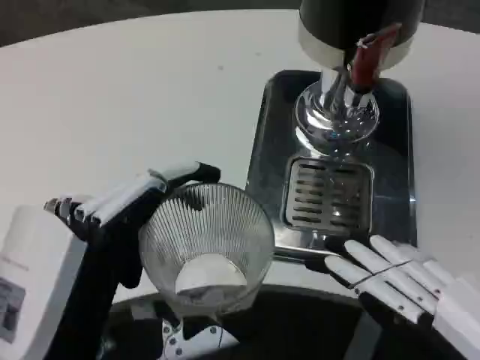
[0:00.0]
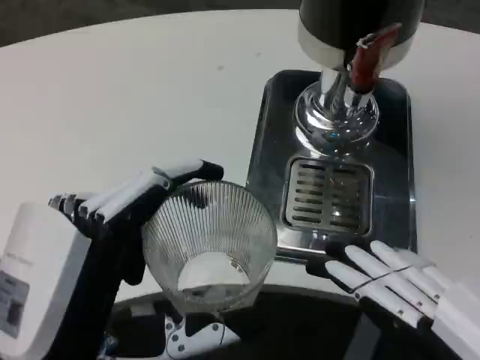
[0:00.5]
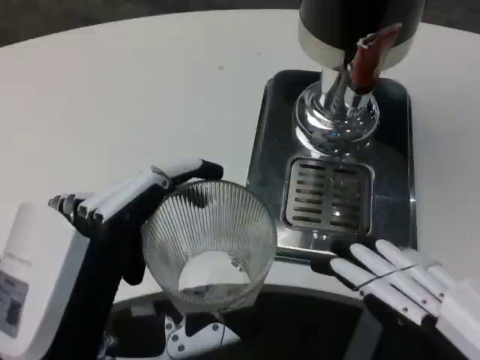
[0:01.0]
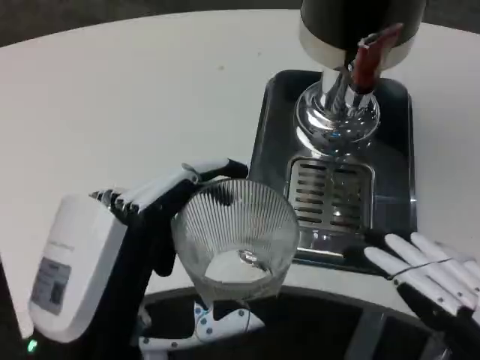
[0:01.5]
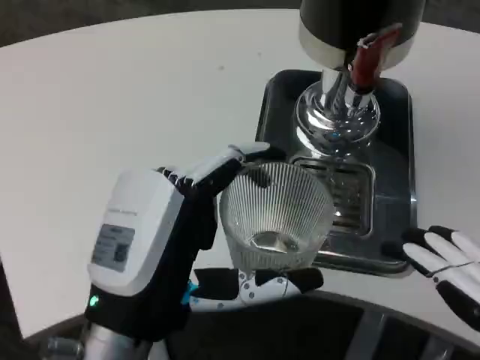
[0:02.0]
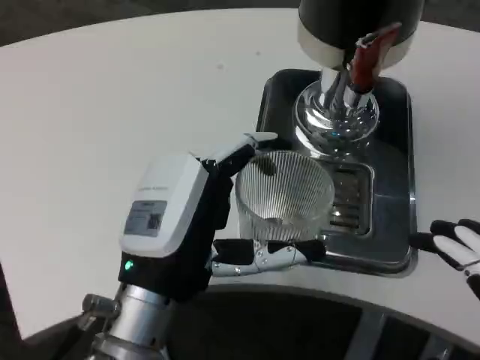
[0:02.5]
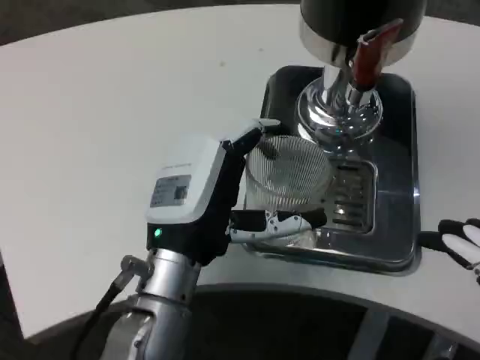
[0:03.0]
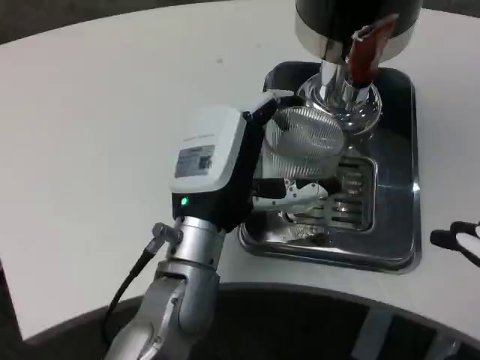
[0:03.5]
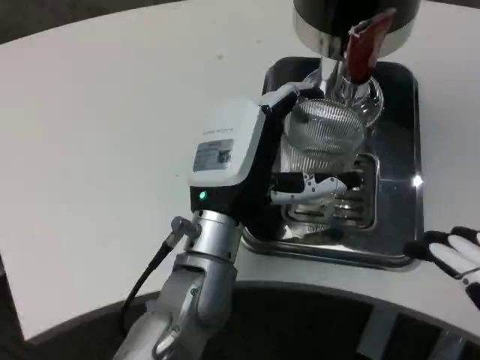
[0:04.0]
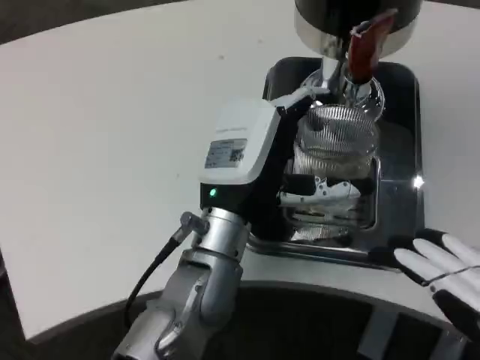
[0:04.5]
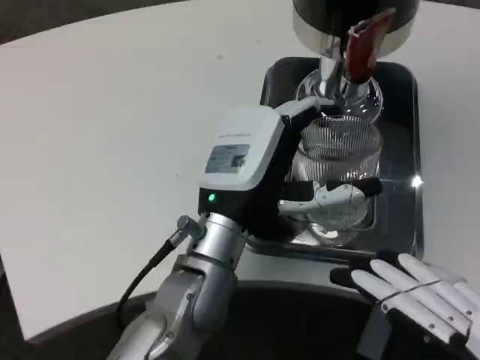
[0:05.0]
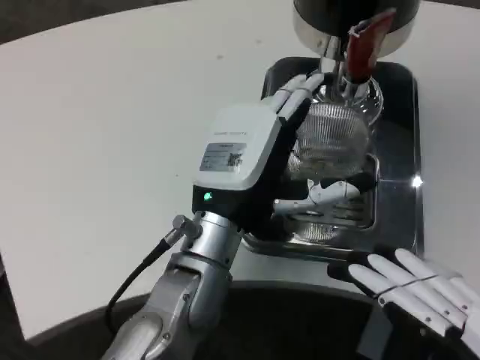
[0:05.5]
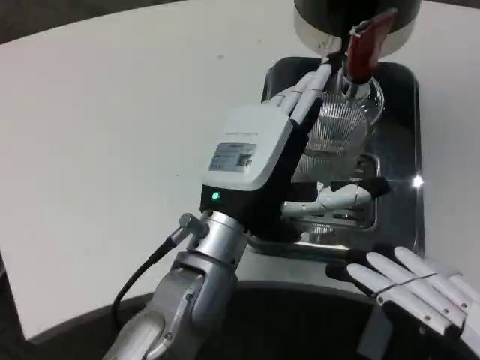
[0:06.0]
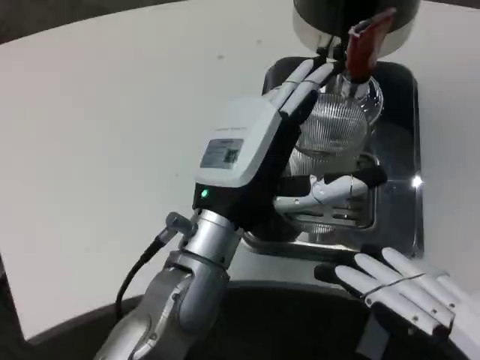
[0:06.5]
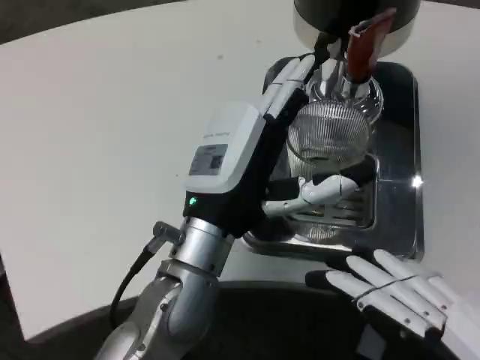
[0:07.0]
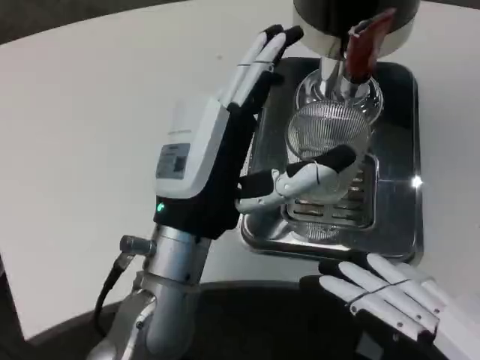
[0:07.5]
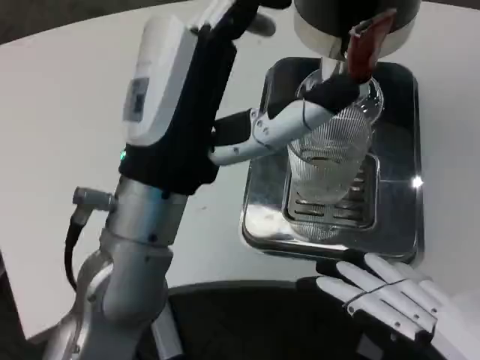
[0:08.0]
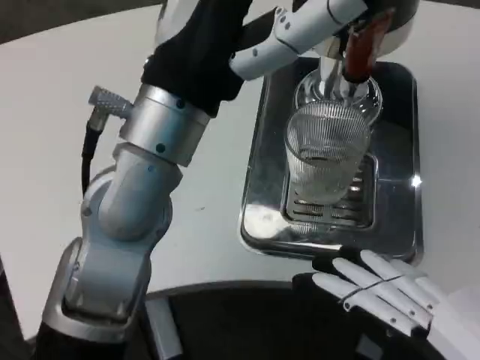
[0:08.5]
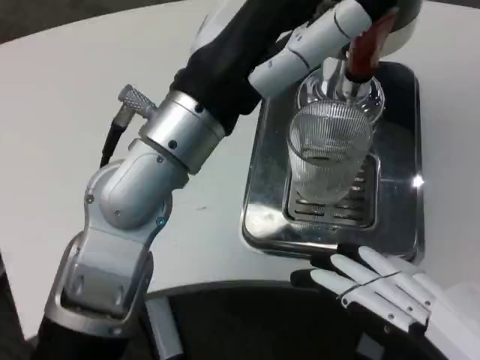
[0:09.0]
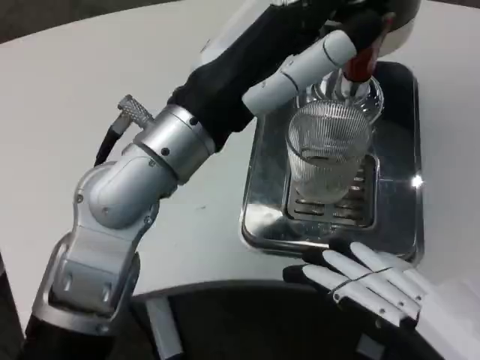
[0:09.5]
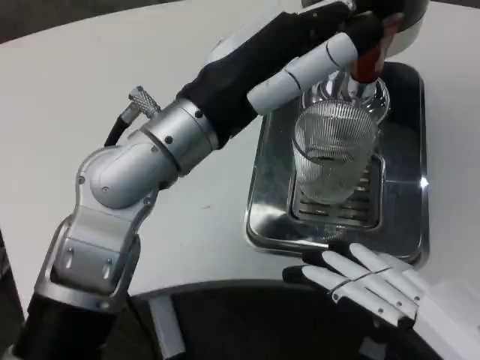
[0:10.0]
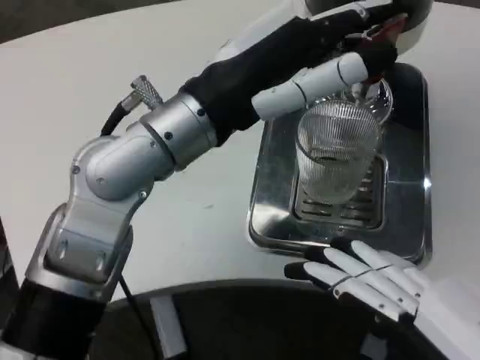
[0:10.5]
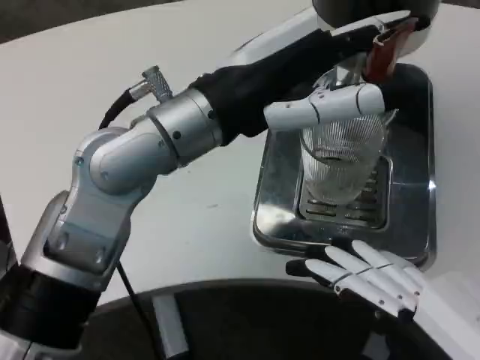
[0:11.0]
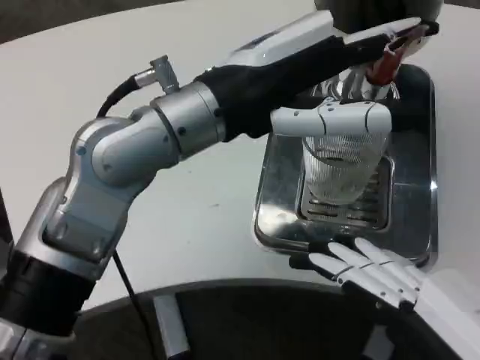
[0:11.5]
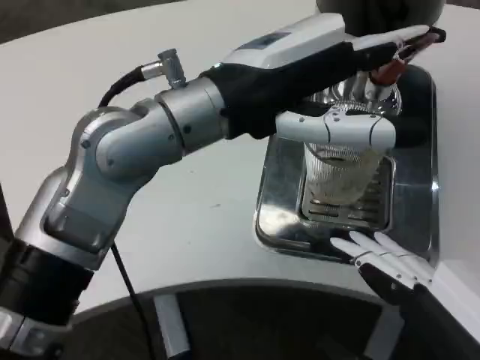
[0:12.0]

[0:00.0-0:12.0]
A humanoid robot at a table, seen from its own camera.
Task of the whole recording: Grasp the cup under the faucet to collect the drink, then remove the cup.
0:00.0 to 0:02.0: The left hand goes approximately 5 cm forward.
0:02.0 to 0:04.0: The left hand travels forward and to the right by approximately 15 cm.
0:04.0 to 0:06.0: The hands stay close to where they were, moving slightly.
0:06.0 to 0:08.0: The left hand heads upward, covering approximately 5 cm.
0:08.0 to 0:10.0: The left hand travels upward by some 5 cm.

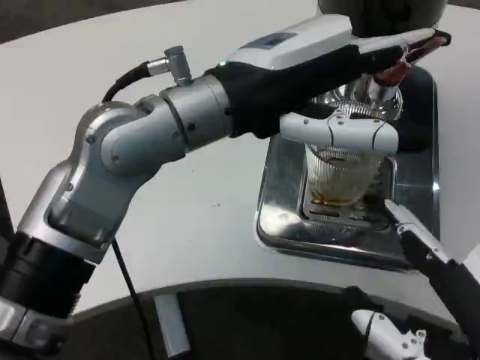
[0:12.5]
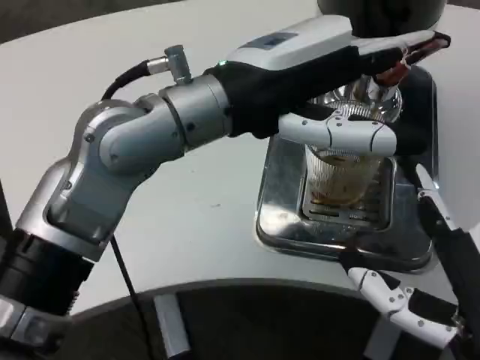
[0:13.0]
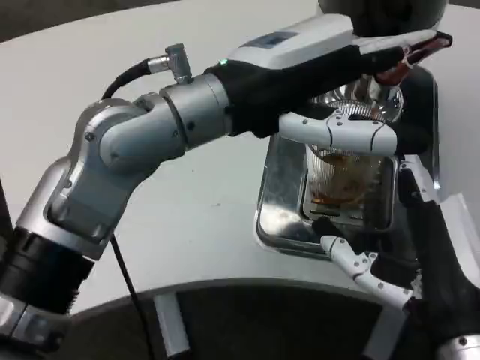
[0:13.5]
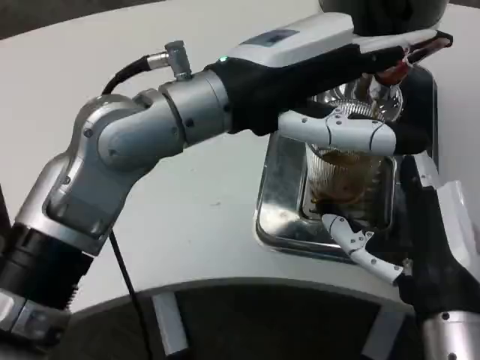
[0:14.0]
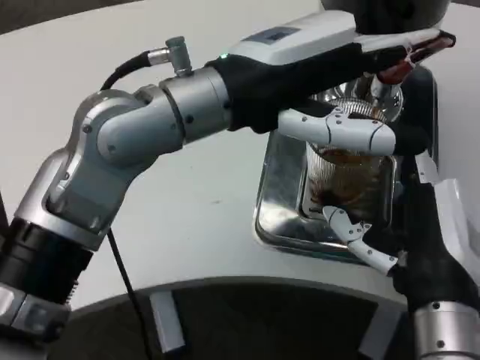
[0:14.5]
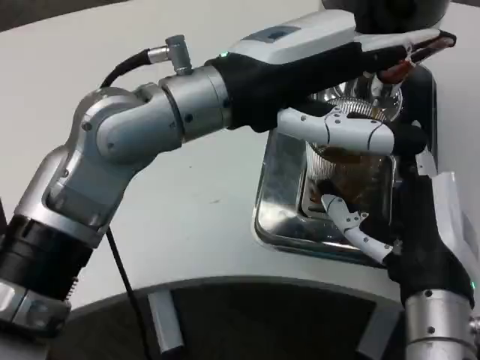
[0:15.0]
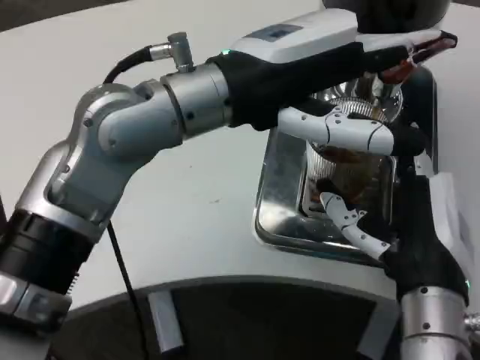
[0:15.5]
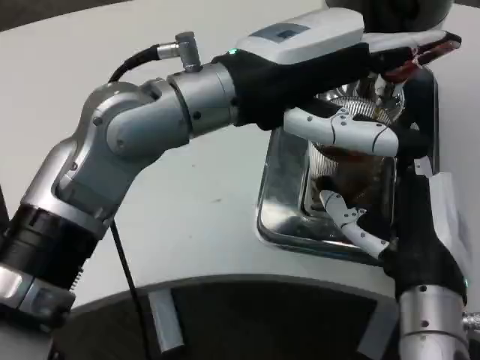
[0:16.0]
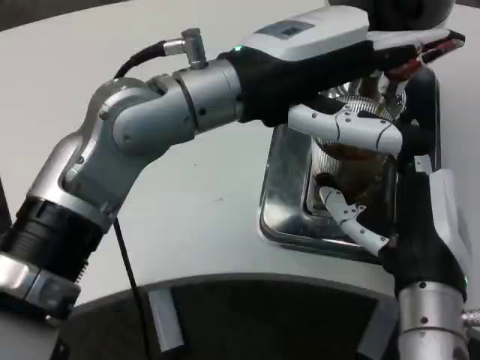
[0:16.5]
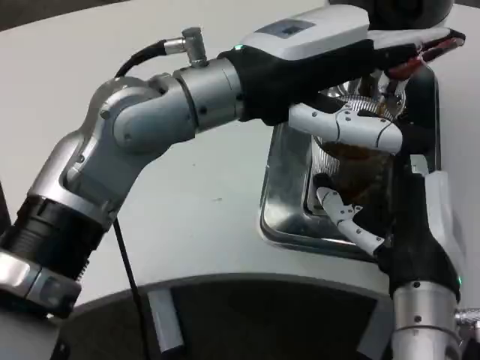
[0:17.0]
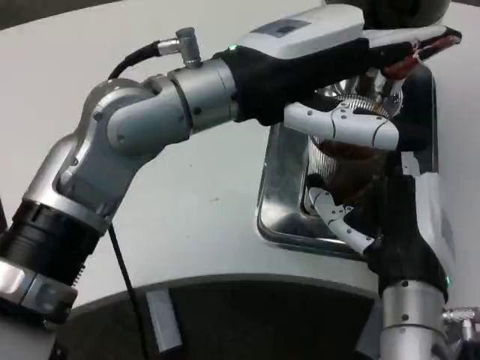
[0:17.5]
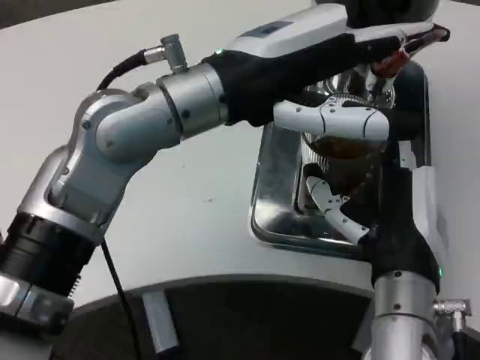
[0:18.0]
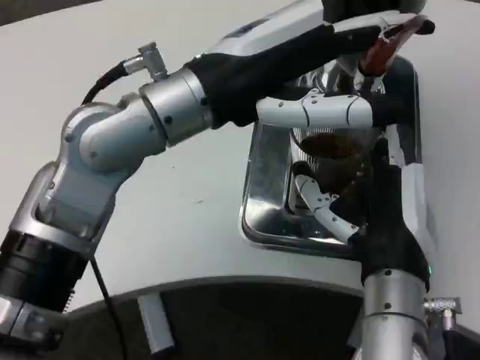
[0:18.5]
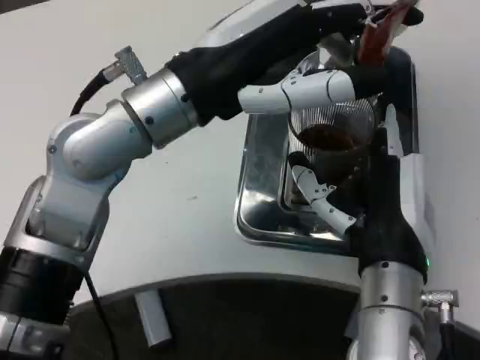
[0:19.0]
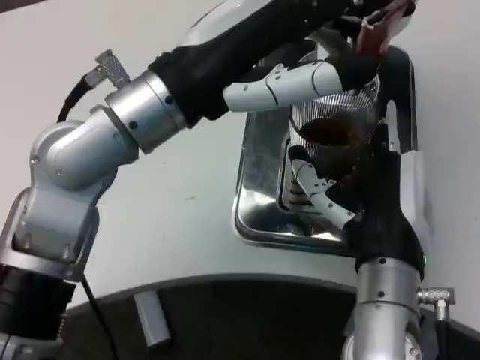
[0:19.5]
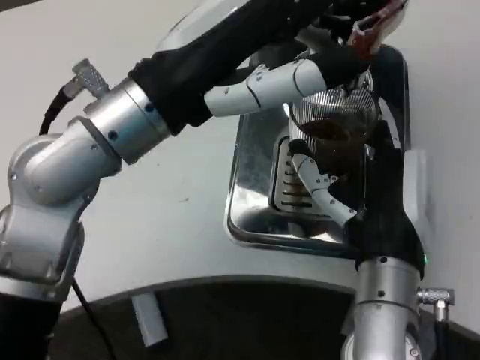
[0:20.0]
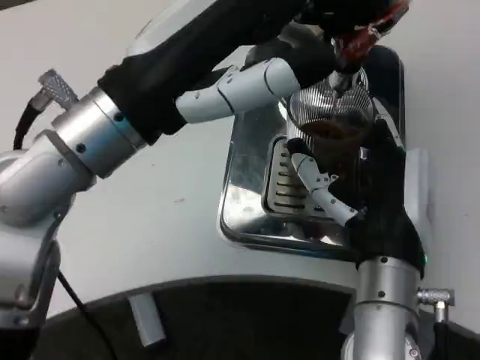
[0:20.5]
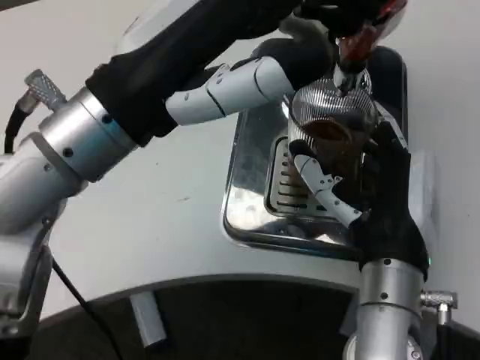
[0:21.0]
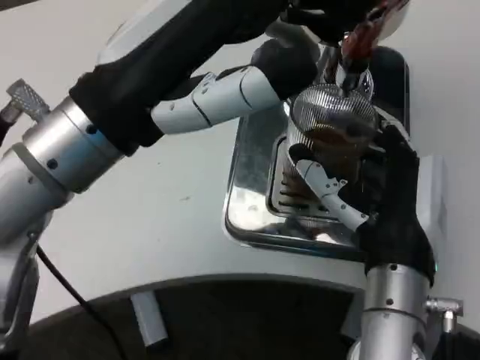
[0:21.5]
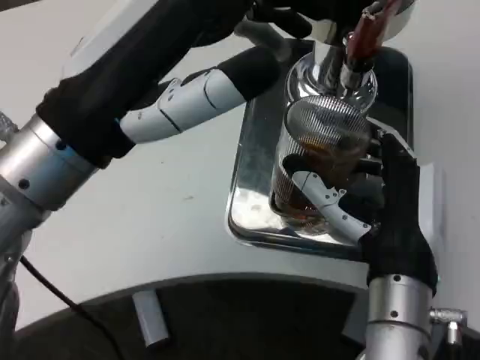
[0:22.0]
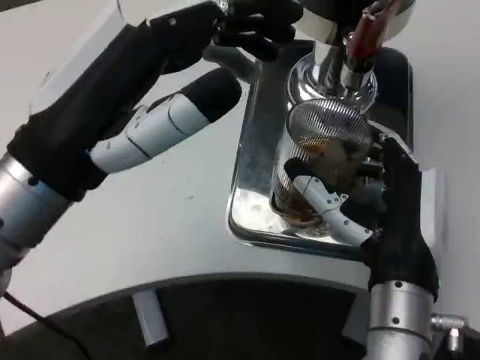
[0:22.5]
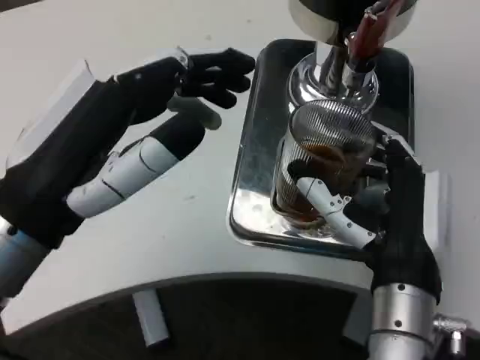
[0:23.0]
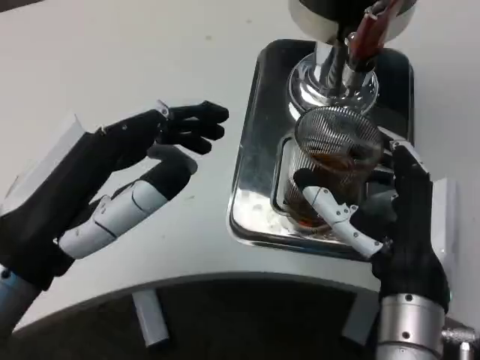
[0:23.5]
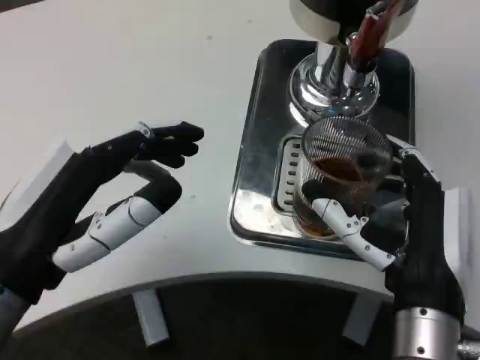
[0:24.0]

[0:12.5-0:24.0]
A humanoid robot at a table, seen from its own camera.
Task of the whole recording: Grasp the cup under the faucet to collect the drink, then remove the cup.
0:12.5 to 0:14.5: The right hand is displaced forward and to the left by about 10 cm.
0:20.0 to 0:22.0: The left hand shifts by some 5 cm.
0:22.0 to 0:24.0: The left hand goes about 10 cm downward.

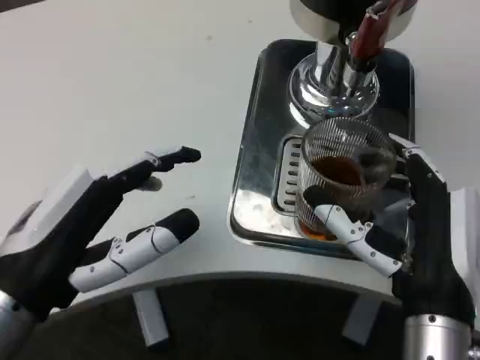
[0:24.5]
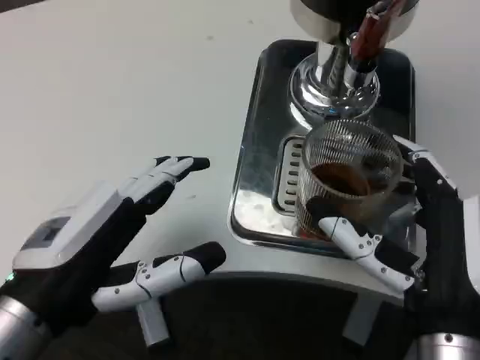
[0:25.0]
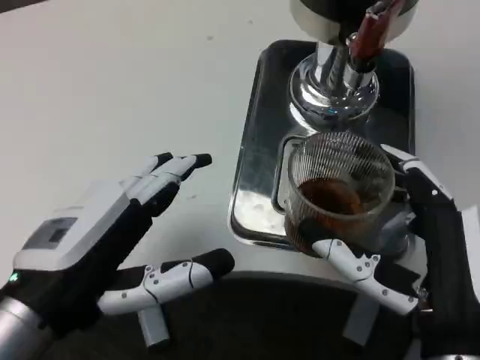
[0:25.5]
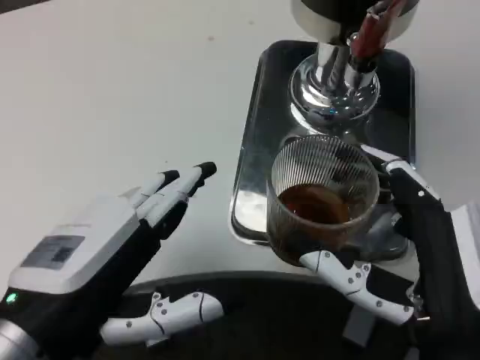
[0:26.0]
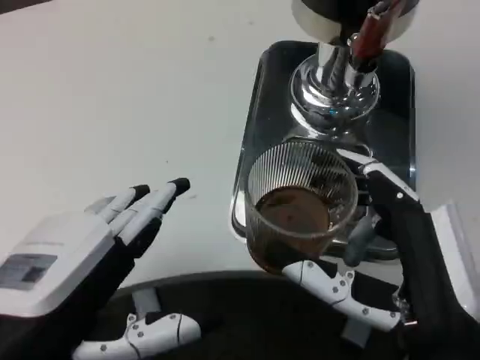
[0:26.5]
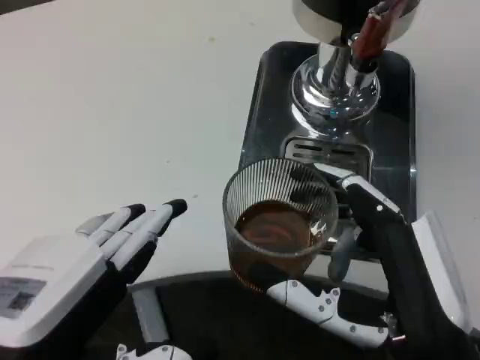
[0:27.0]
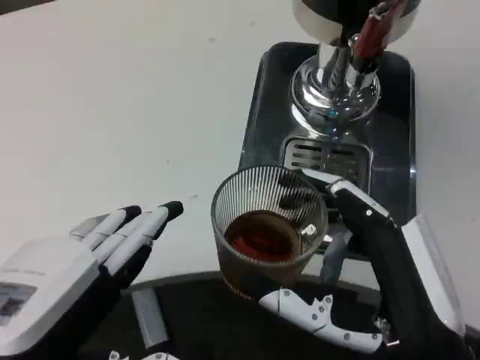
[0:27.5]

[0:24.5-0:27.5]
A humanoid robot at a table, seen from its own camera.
Task of the whole recording: Grasp the cup under the faucet to collect the drink, then remove the cup.
0:26.0 to 0:27.5: The left hand moves approximately 5 cm.
